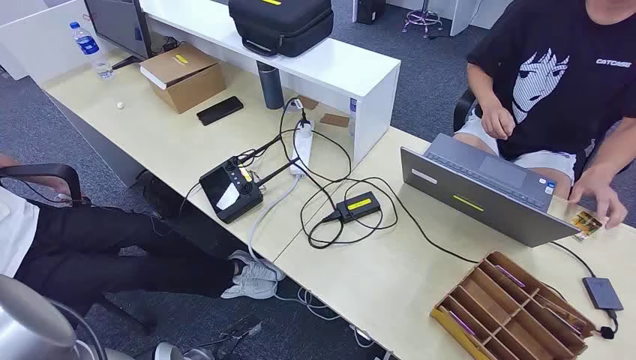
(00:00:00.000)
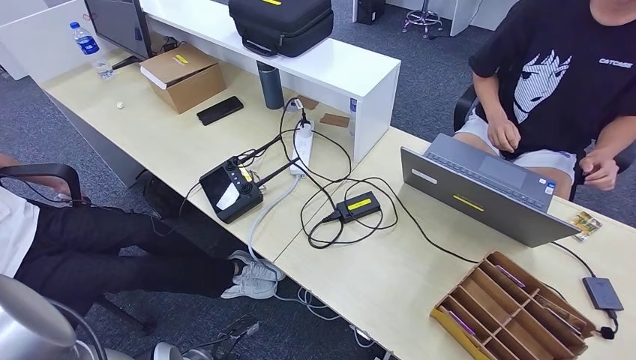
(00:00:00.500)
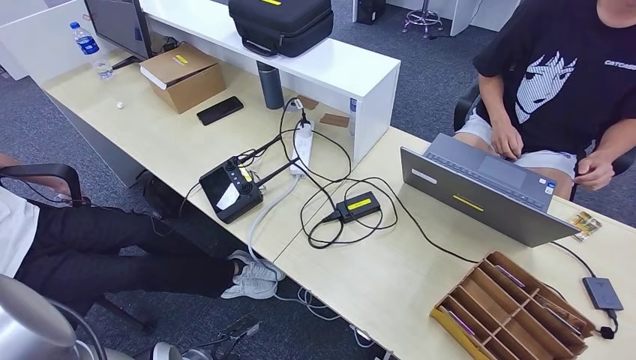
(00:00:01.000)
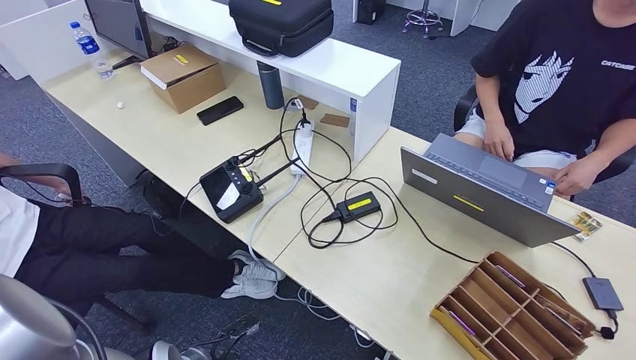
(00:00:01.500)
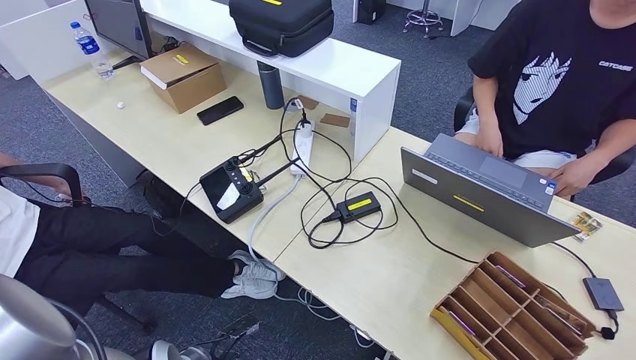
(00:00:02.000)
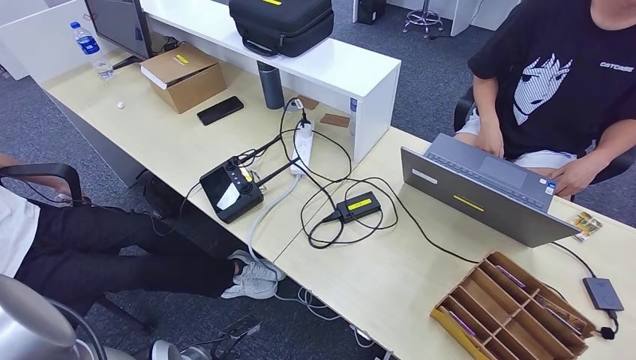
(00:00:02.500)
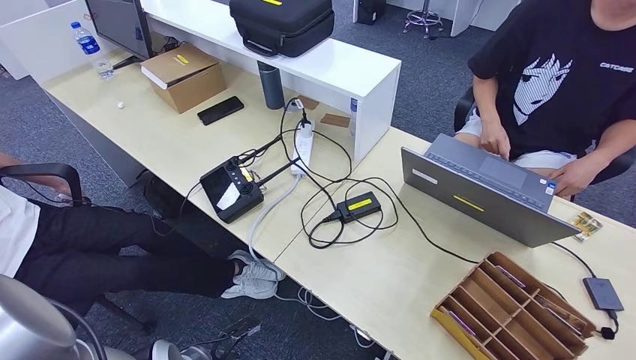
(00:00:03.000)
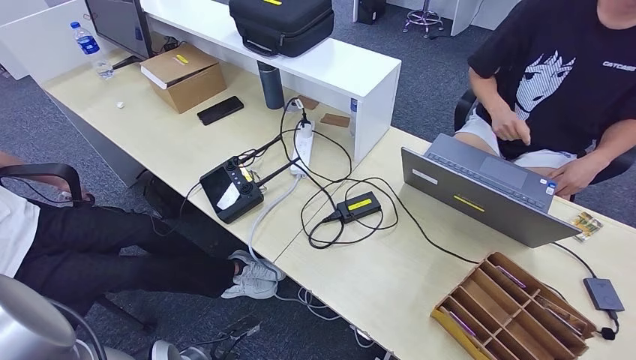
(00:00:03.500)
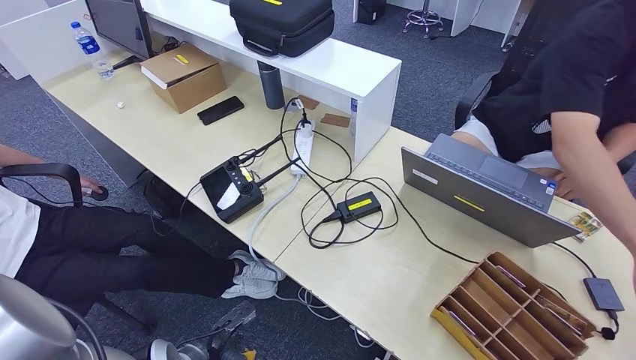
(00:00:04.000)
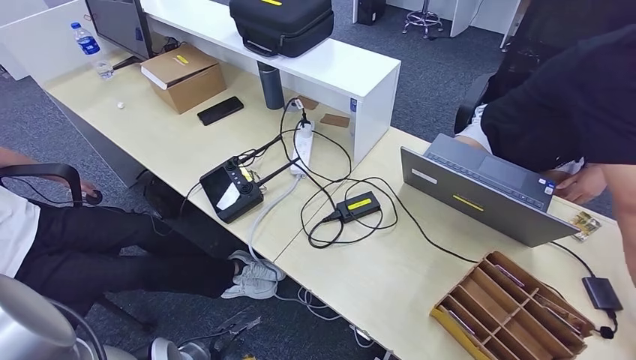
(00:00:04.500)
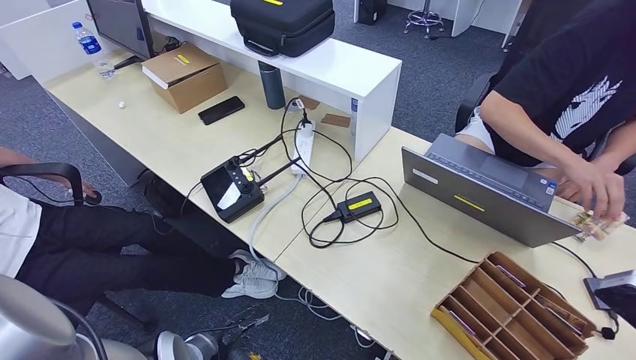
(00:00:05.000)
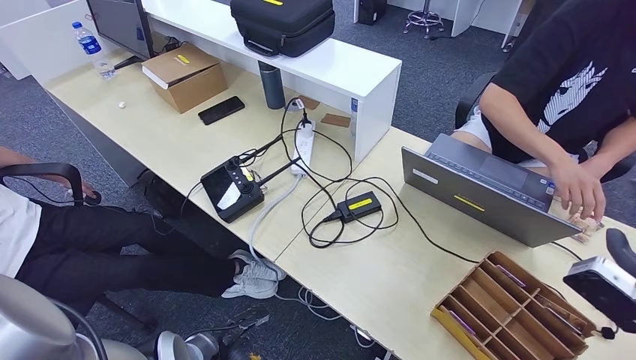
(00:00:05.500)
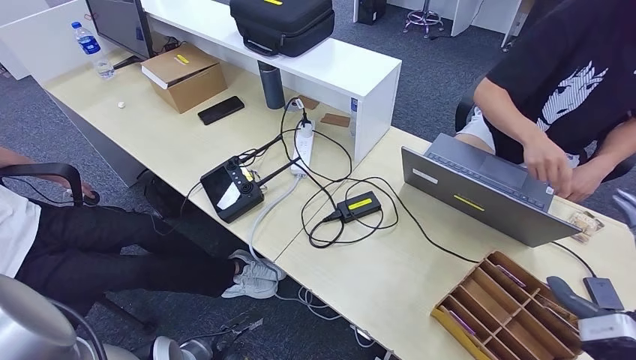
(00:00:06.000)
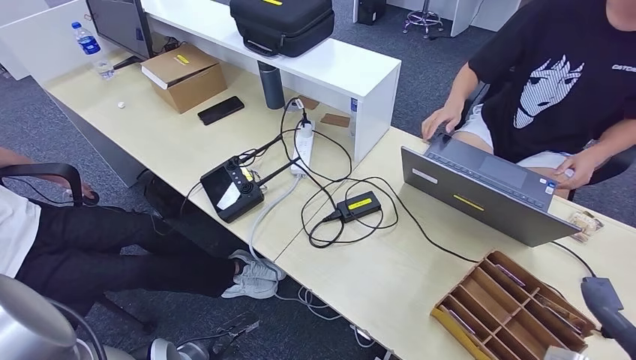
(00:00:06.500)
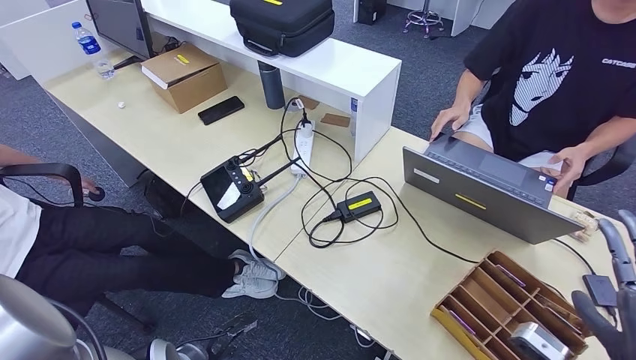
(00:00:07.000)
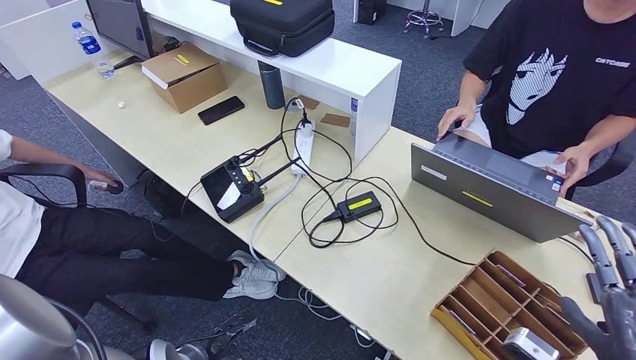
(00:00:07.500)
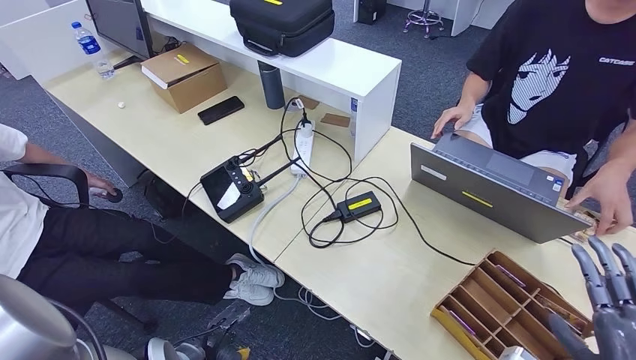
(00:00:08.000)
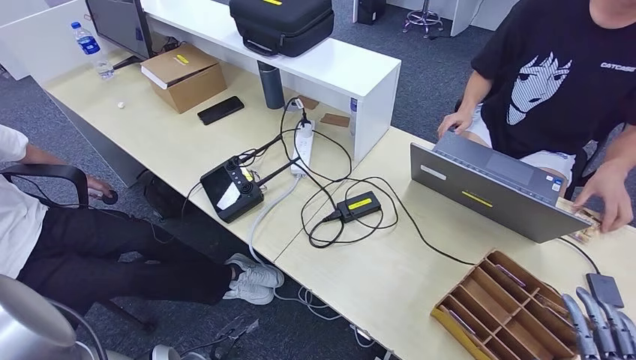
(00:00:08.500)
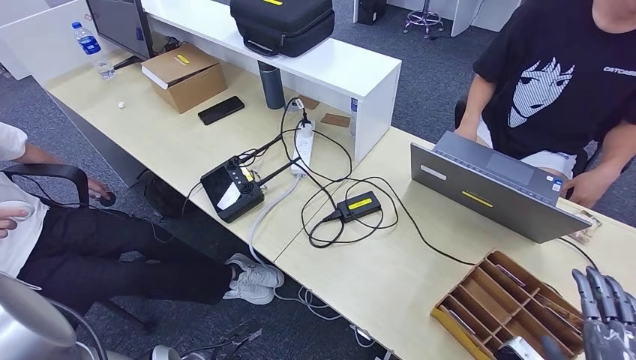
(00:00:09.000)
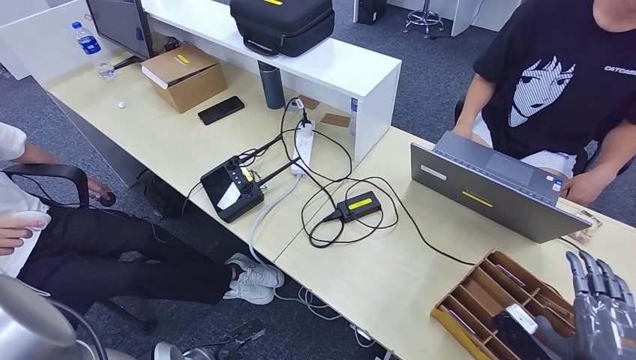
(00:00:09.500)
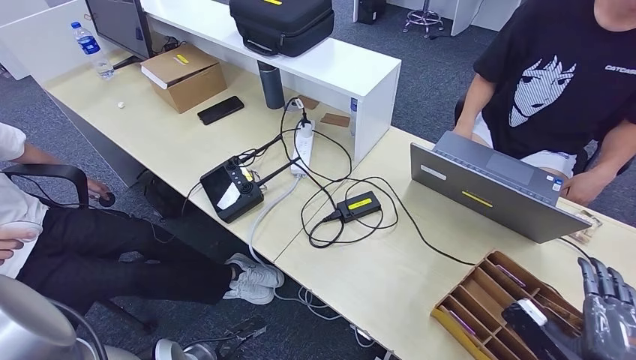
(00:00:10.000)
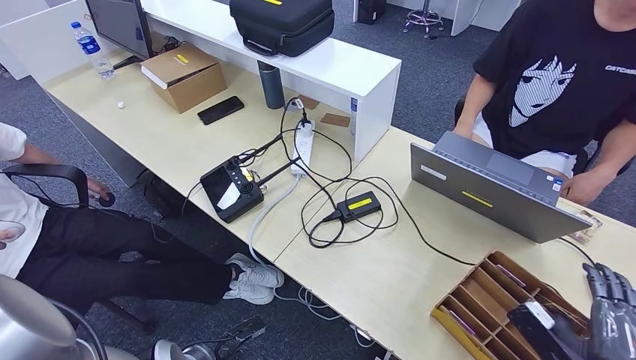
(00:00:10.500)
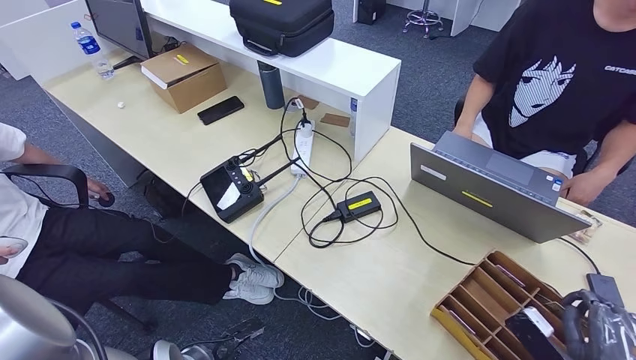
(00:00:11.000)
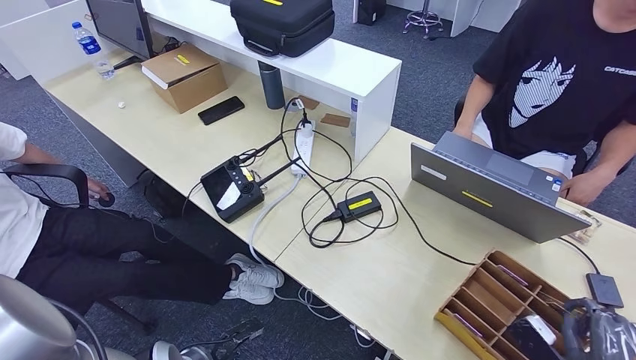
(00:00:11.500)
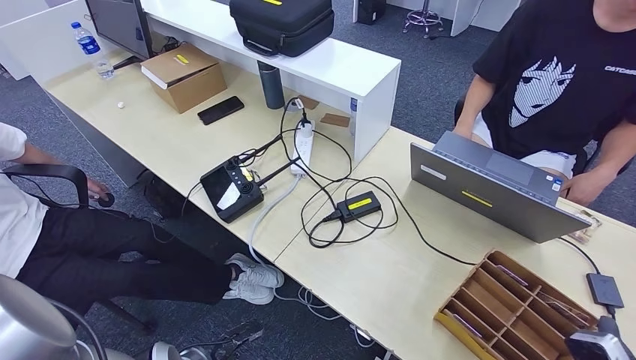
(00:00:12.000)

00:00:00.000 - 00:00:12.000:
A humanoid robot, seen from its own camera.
Step, 00:00:00.000 - 00:00:02.000: Take the ID card from the person's hand.
Step, 00:00:03.500 - 00:00:06.000: Hand the ID card to the person.
00:00:02.000 - 00:00:04.000: The right hand heads upward, covering some 5 cm.
00:00:04.000 - 00:00:06.000: The right hand heads to the left, covering approximately 15 cm.
00:00:06.000 - 00:00:08.000: The right hand moves roughly 5 cm.
00:00:08.000 - 00:00:10.000: The right hand is displaced downward by approximately 5 cm.
00:00:10.000 - 00:00:12.000: The right hand ends up roughly 5 cm from where it was.

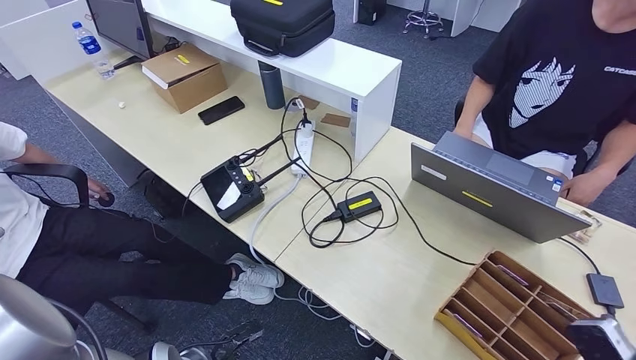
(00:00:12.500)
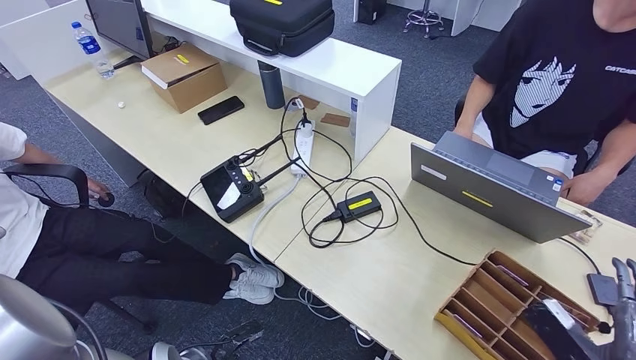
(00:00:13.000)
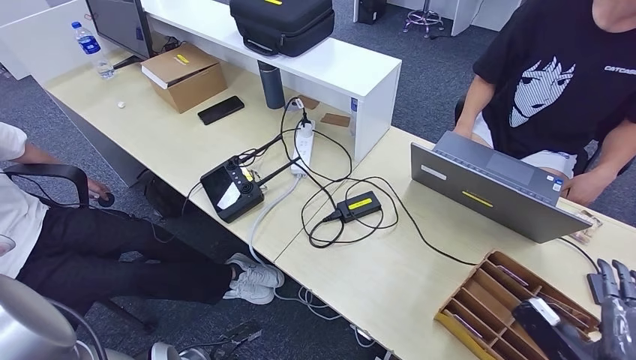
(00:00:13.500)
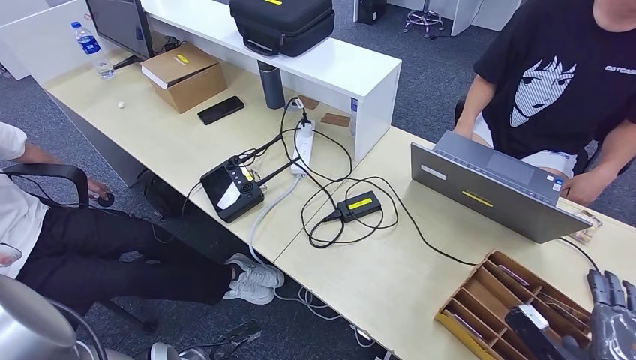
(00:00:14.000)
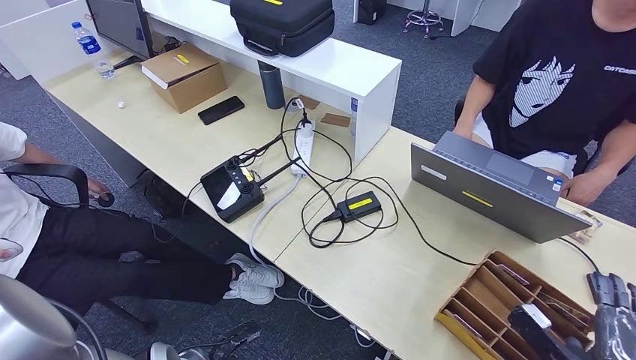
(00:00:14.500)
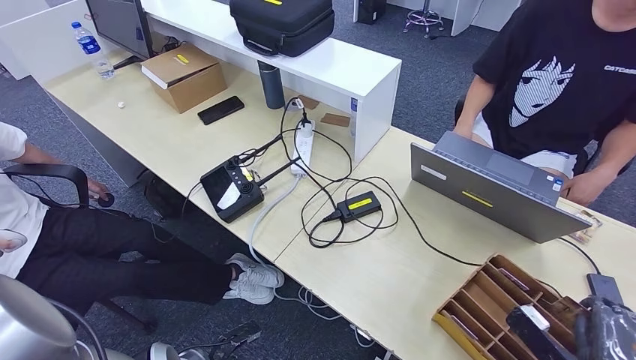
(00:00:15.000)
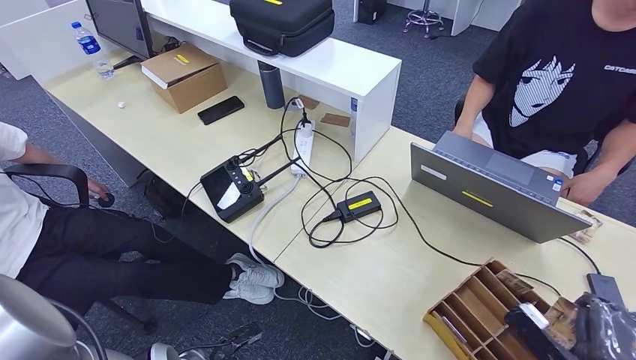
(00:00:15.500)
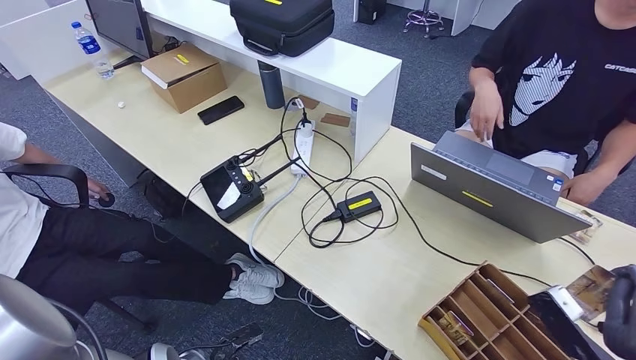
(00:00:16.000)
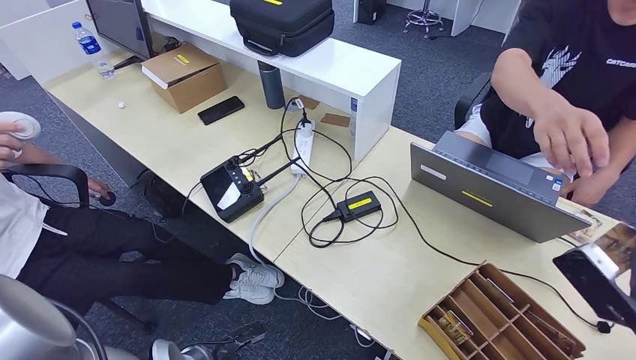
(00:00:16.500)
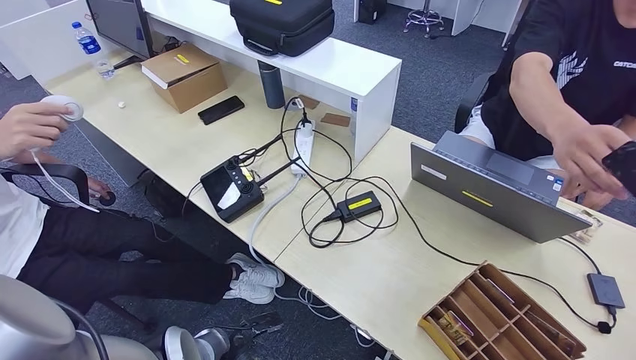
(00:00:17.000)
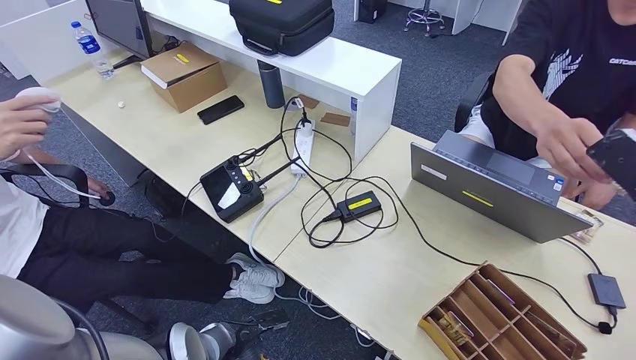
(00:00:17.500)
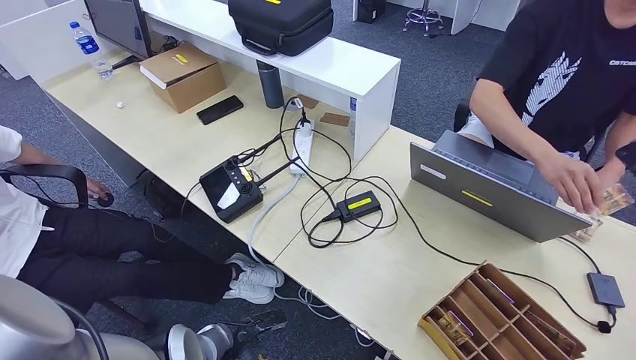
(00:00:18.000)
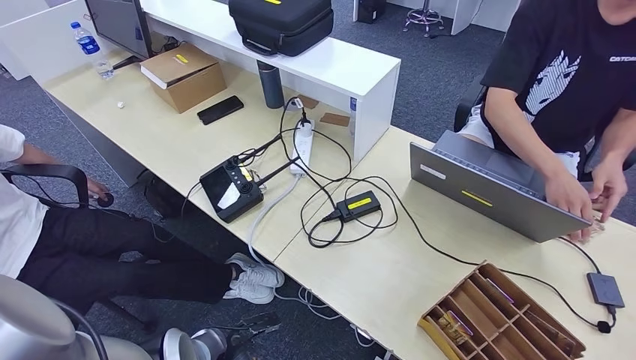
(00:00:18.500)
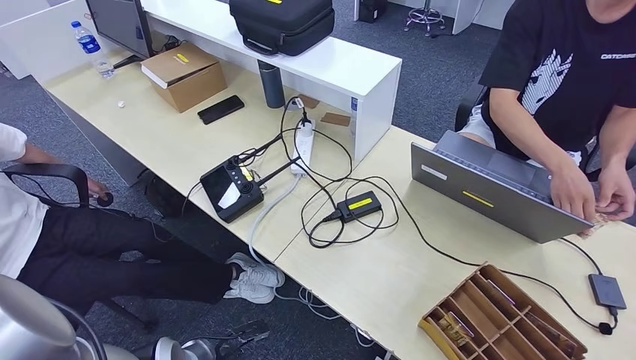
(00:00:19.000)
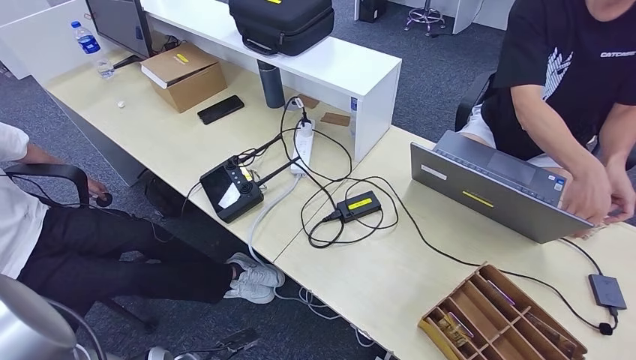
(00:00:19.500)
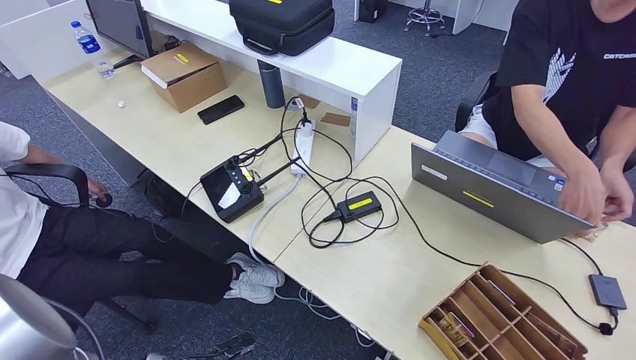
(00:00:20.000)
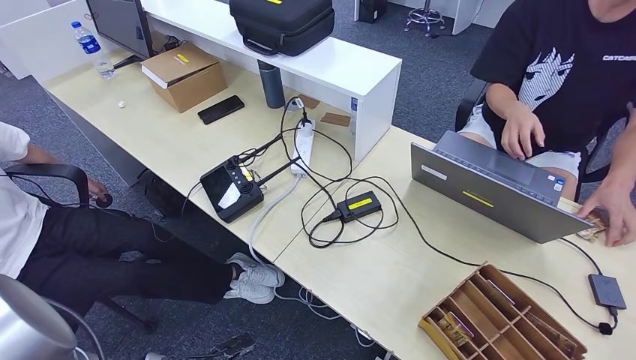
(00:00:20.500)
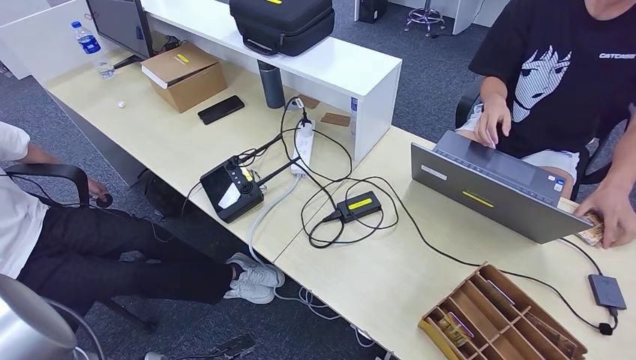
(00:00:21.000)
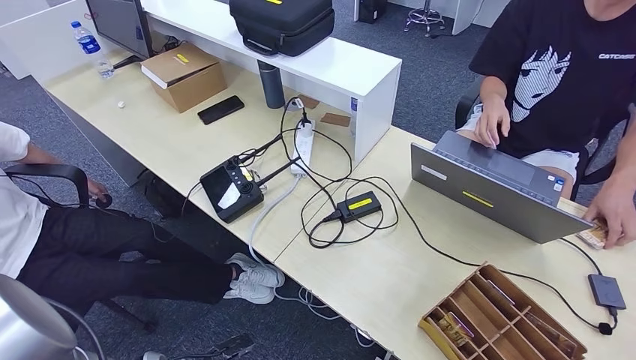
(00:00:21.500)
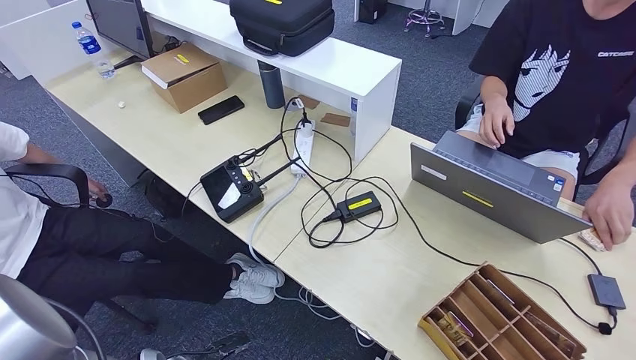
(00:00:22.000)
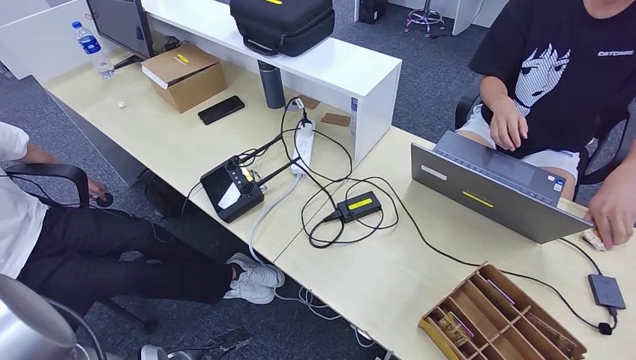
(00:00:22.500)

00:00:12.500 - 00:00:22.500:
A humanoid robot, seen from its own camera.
Step, 00:00:12.500 - 00:00:17.000: Pick up the room key from the key card box.
00:00:12.500 - 00:00:14.500: The right hand ends up about 5 cm from where it was.
00:00:14.500 - 00:00:16.500: The right hand shifts some 10 cm upward.
00:00:16.500 - 00:00:18.500: The right hand goes roughly 15 cm upward and forward.
00:00:18.500 - 00:00:20.500: The right hand travels downward, backward and to the right by roughly 40 cm; the left hand goes about 5 cm backward.
00:00:20.500 - 00:00:22.500: The right hand goes about 20 cm downward and backward.
